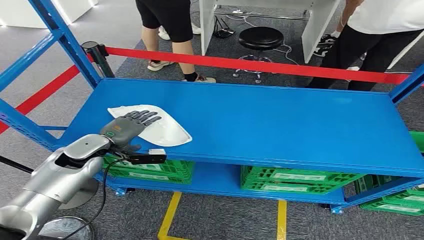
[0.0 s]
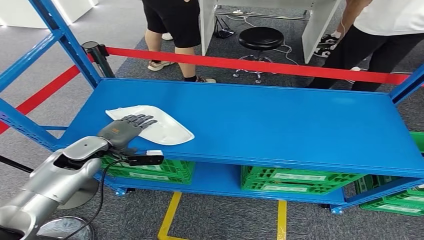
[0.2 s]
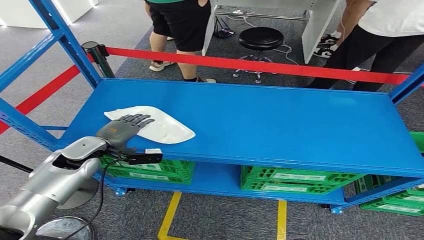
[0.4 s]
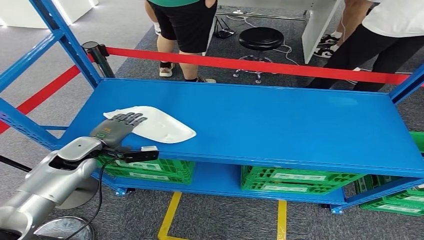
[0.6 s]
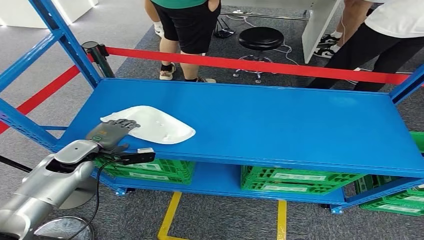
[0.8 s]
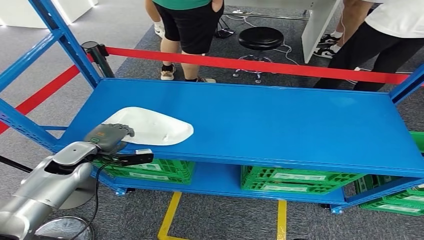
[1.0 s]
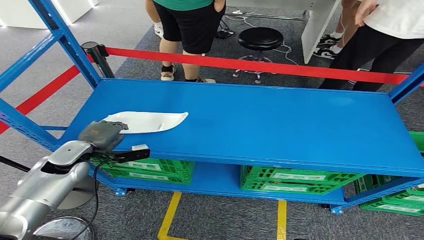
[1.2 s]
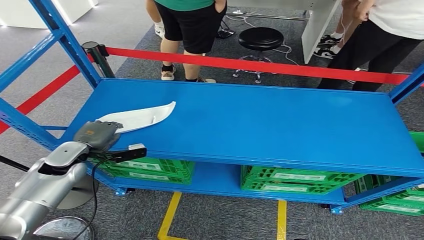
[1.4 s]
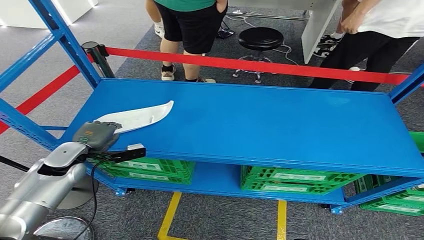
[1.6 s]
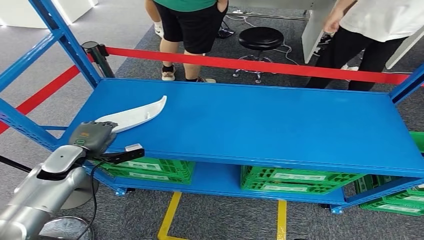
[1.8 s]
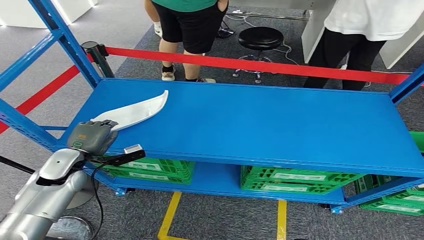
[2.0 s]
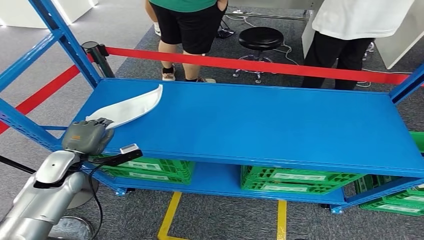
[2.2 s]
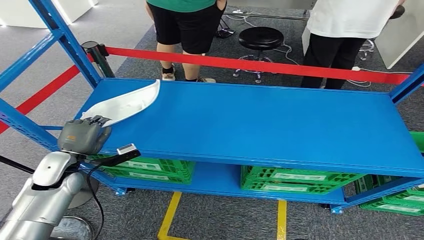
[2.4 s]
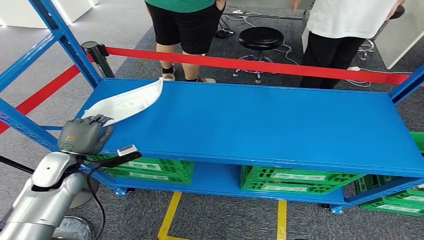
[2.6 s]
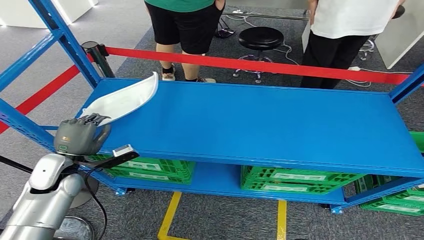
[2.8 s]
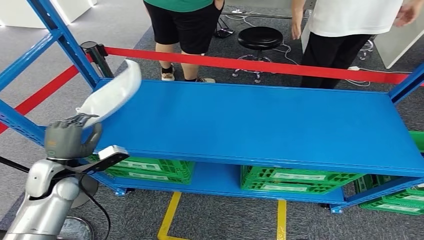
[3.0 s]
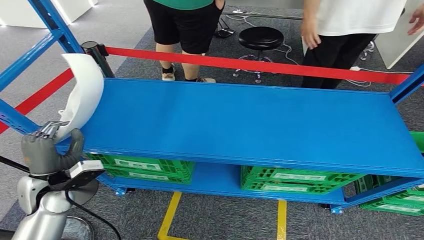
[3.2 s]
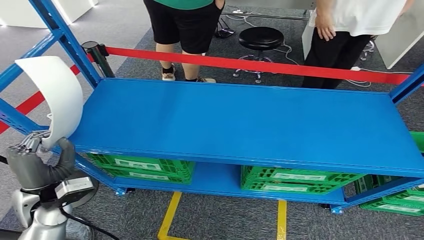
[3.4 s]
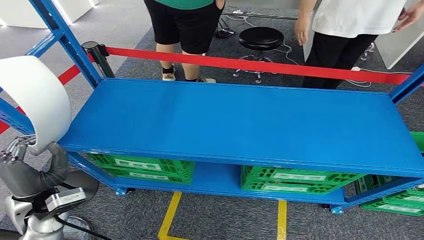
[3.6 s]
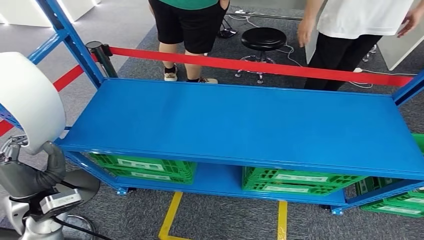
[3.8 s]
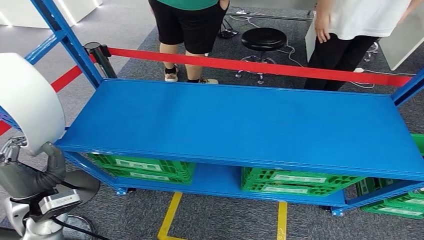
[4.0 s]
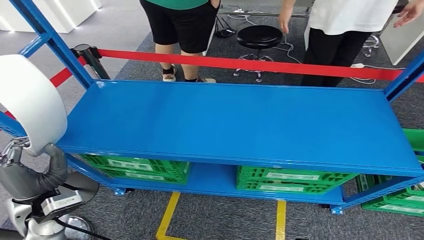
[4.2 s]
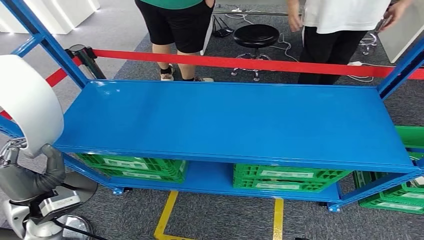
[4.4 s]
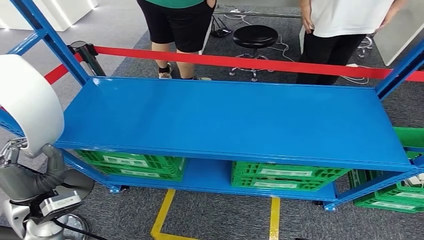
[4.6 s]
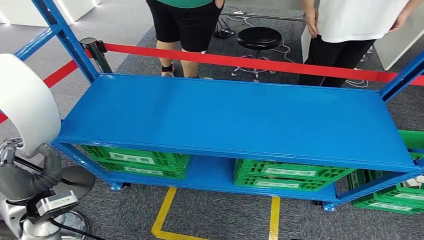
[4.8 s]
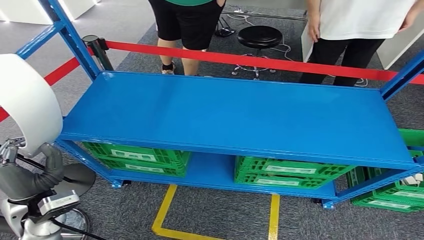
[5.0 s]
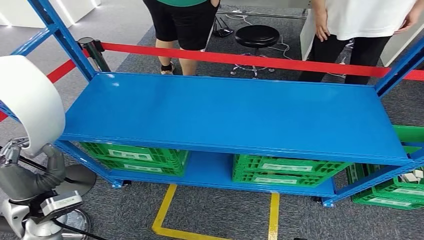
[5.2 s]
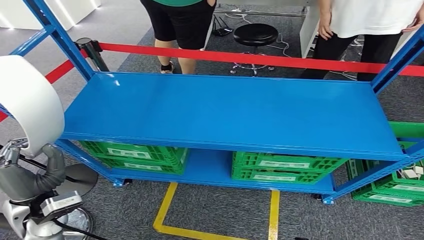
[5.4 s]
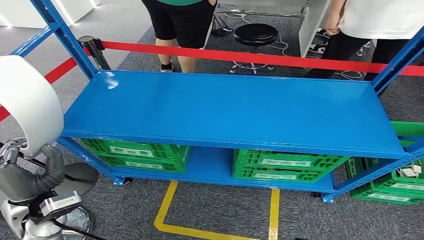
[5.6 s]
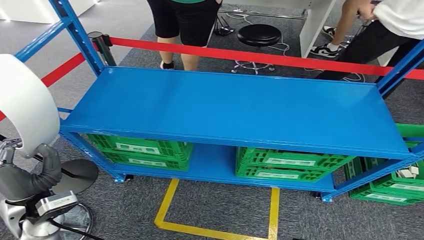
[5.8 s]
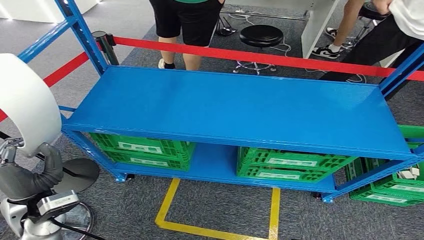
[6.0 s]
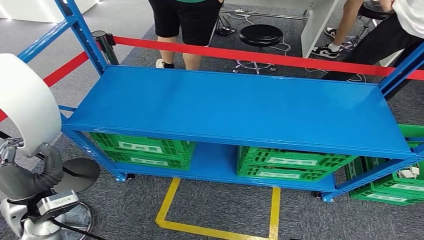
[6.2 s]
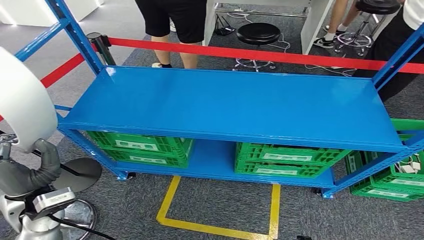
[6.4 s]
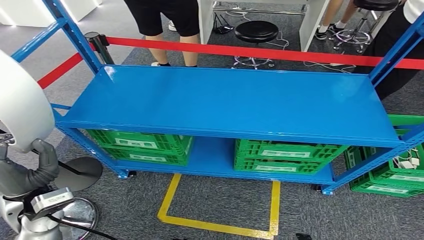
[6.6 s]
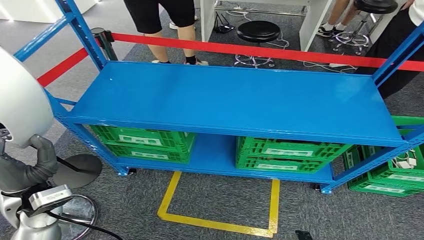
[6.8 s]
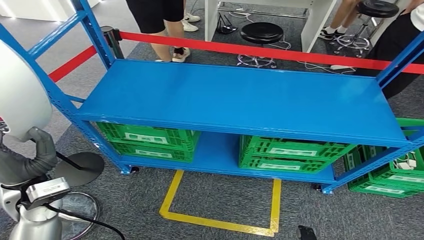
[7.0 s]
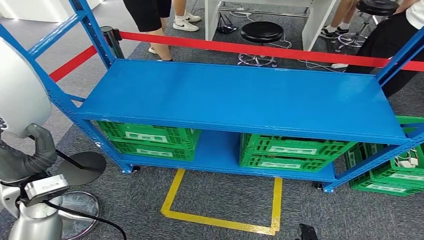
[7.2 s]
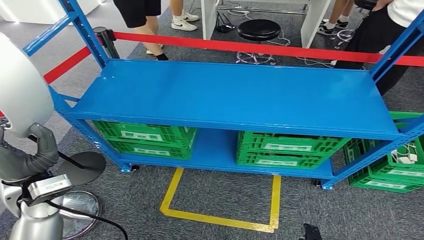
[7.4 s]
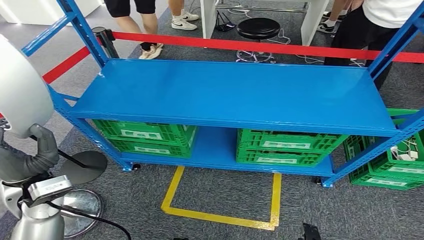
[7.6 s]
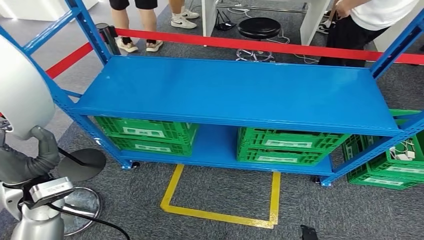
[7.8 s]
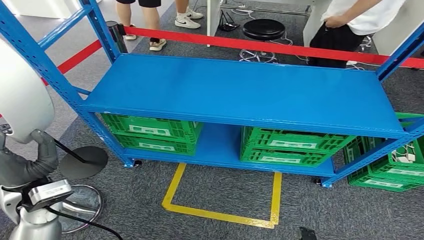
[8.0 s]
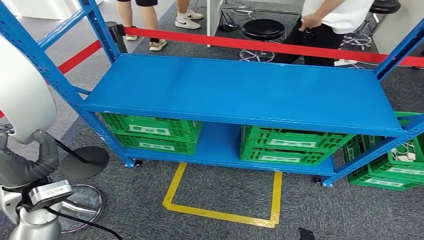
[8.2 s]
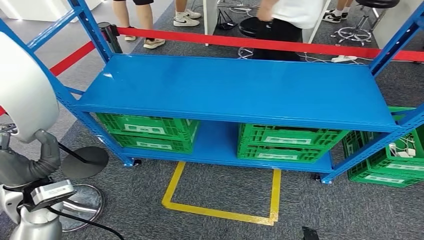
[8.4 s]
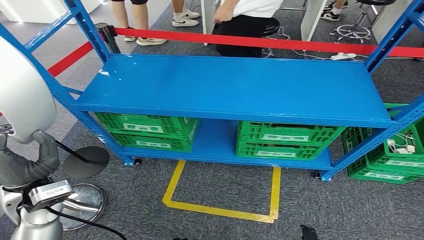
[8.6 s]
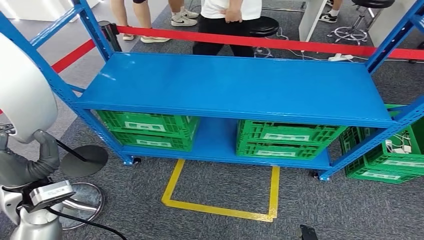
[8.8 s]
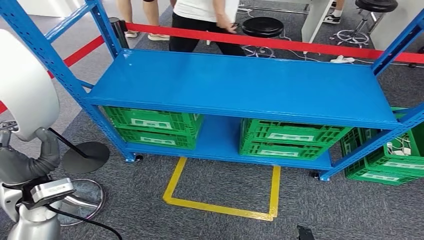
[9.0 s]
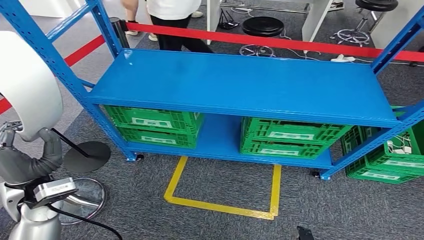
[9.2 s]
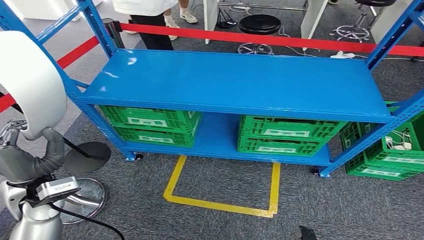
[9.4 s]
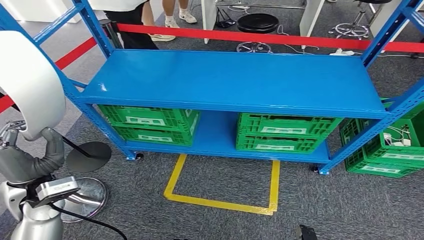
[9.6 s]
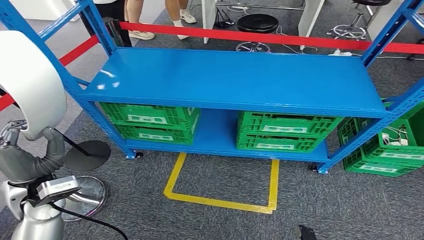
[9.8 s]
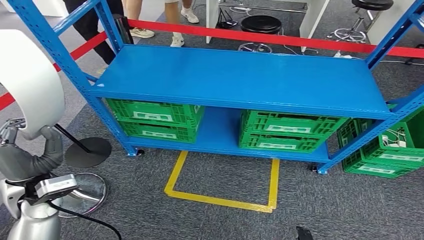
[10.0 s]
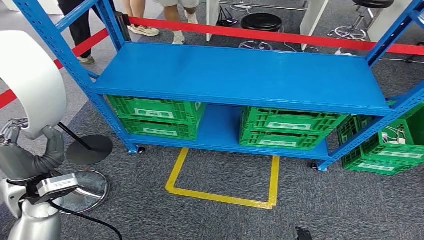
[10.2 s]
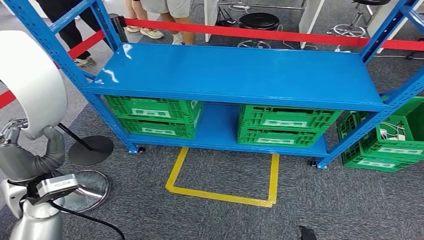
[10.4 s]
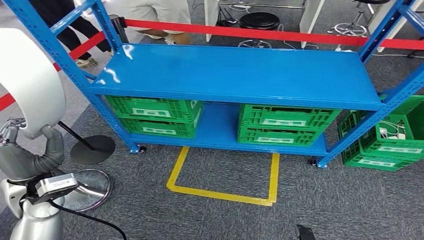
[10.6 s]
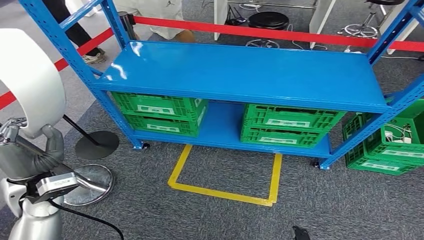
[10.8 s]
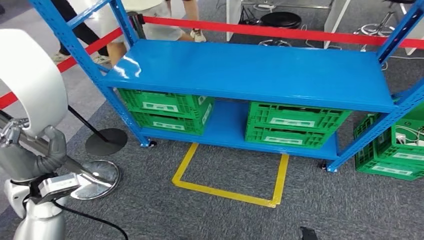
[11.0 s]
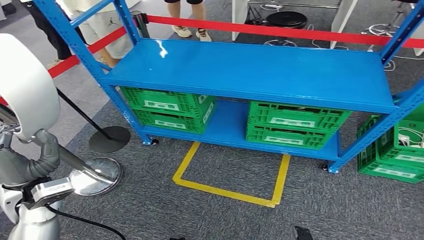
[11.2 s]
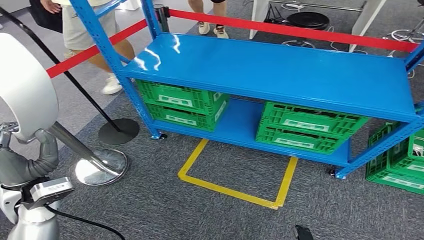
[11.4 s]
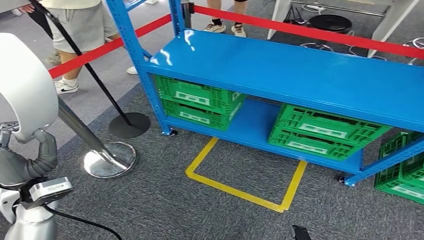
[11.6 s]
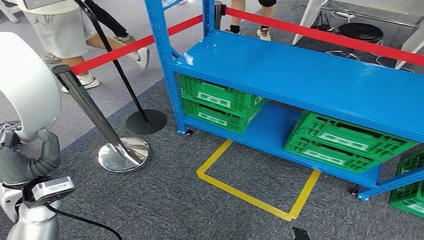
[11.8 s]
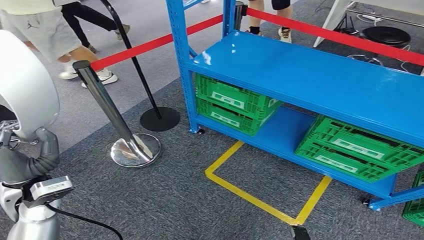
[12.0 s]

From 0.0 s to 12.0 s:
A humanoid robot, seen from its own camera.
Step, from 0.0 s to 4.6 s: Pick up the small parts from the shelf.
From 1.6 s to 3.0 s: The left hand is displaced backward by about 5 cm.

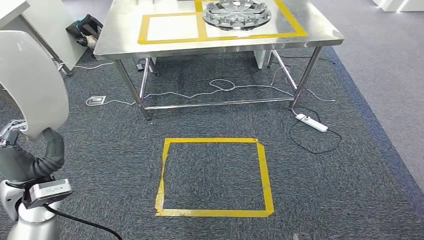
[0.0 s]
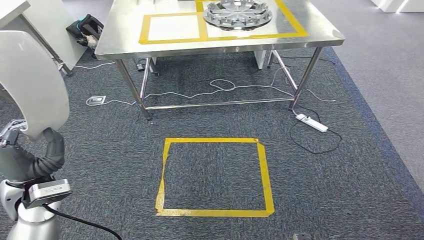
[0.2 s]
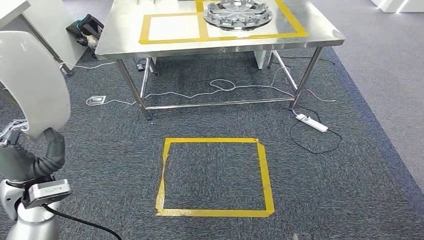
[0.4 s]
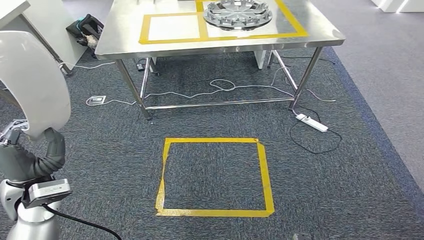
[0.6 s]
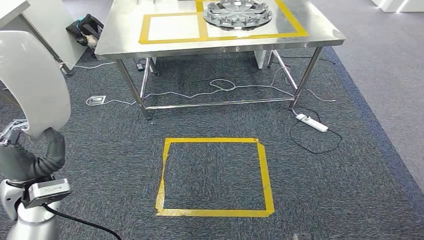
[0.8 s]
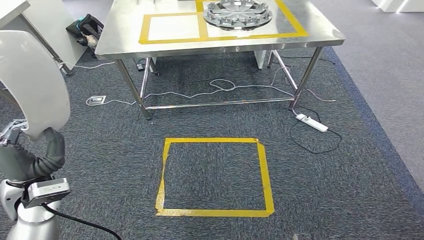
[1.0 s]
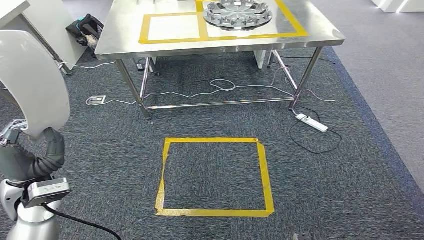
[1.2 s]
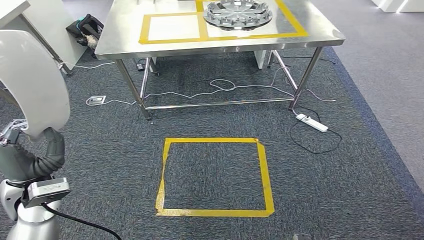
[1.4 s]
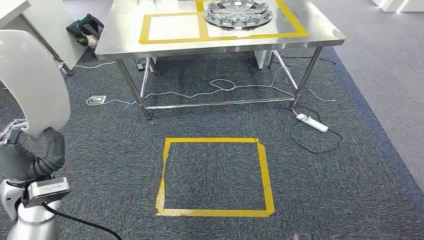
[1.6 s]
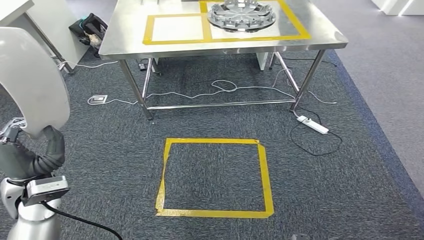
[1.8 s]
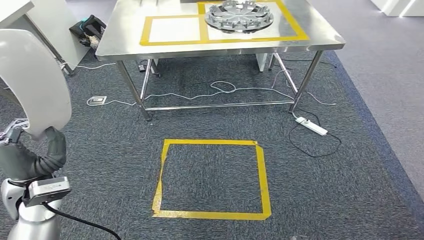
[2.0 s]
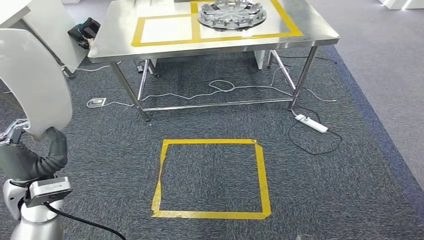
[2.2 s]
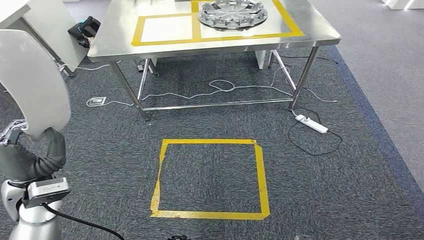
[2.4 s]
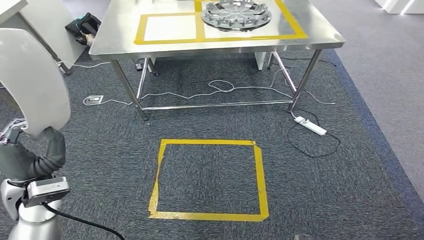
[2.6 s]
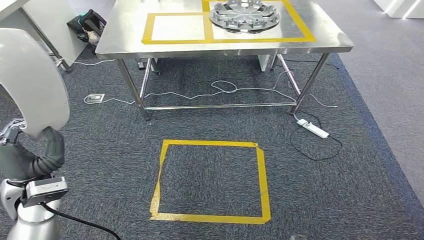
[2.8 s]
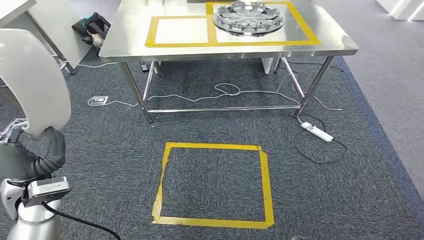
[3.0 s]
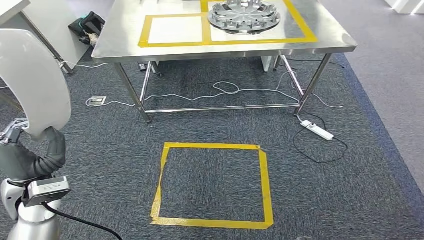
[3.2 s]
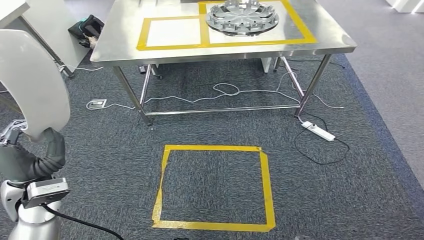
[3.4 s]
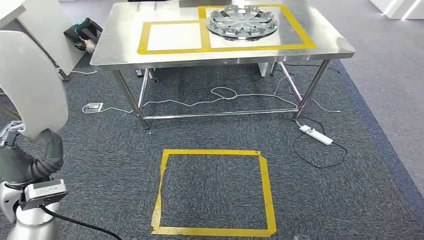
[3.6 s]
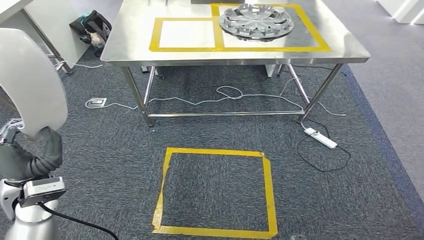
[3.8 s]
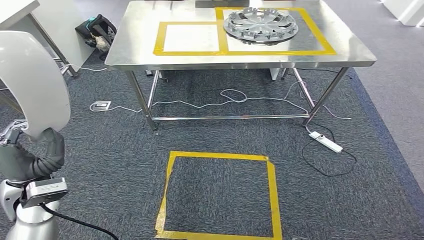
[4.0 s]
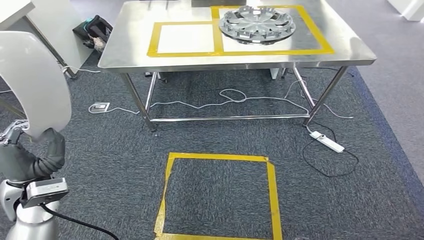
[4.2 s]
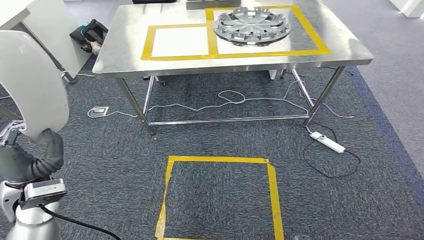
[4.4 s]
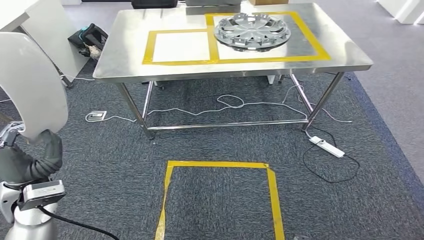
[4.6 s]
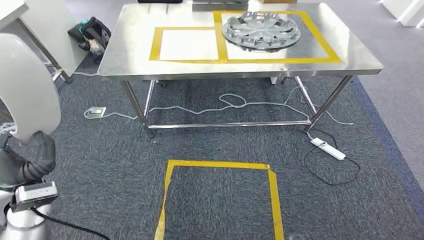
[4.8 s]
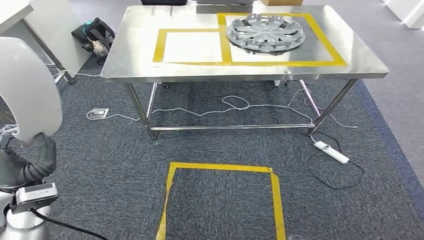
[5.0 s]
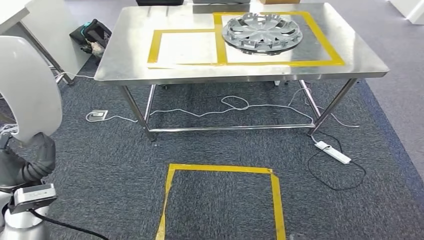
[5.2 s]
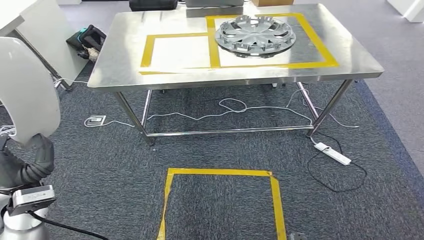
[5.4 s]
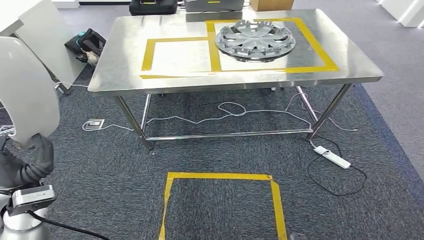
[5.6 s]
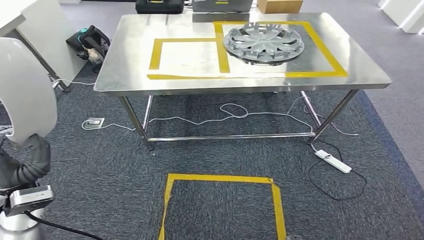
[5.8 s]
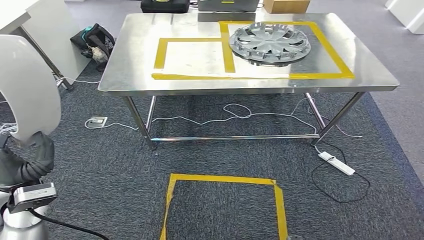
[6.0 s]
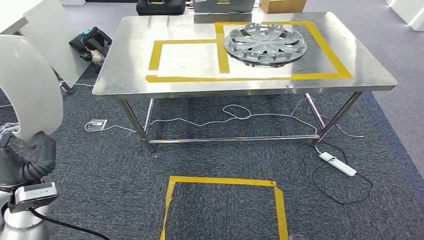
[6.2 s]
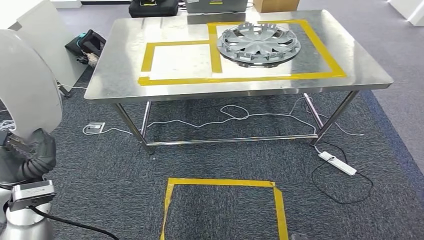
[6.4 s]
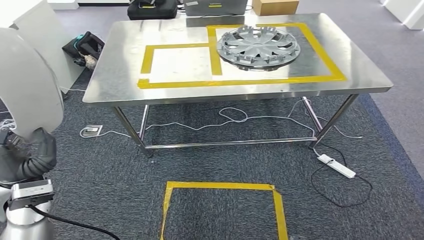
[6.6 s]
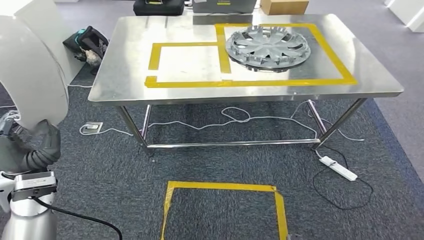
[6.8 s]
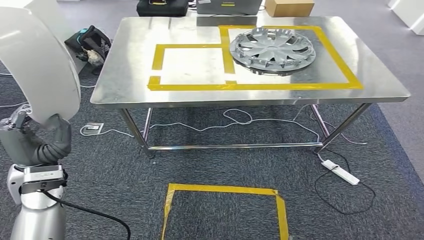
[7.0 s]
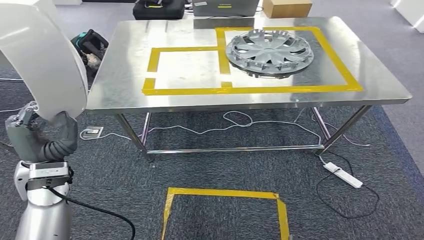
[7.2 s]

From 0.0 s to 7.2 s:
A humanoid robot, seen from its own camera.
From 0.0 s to 2.8 s: Neither hand changes place.
